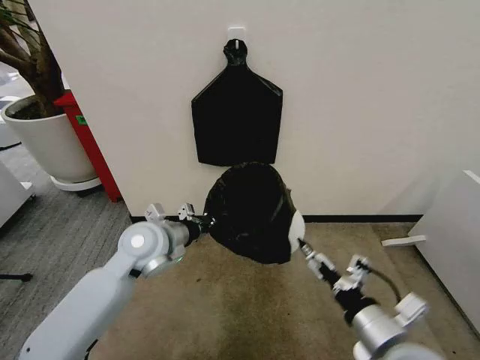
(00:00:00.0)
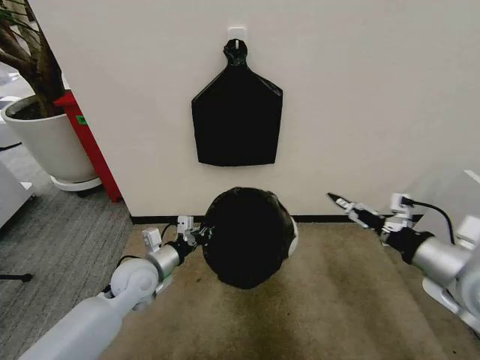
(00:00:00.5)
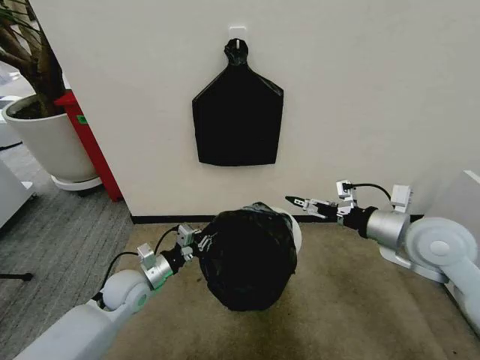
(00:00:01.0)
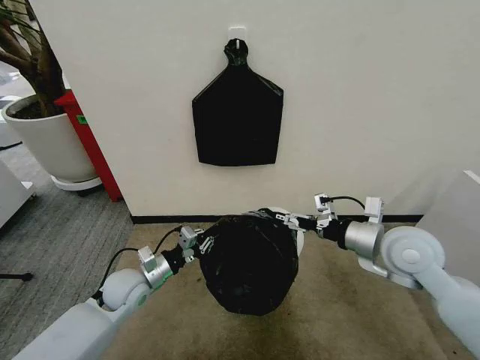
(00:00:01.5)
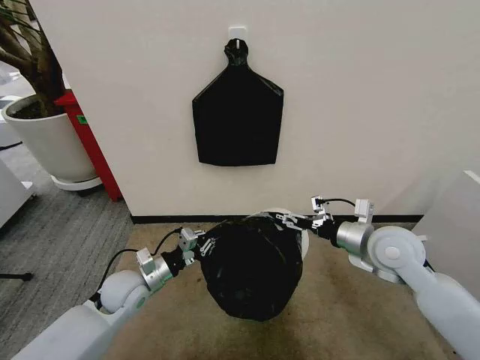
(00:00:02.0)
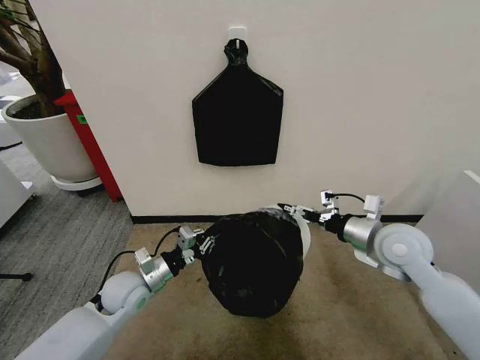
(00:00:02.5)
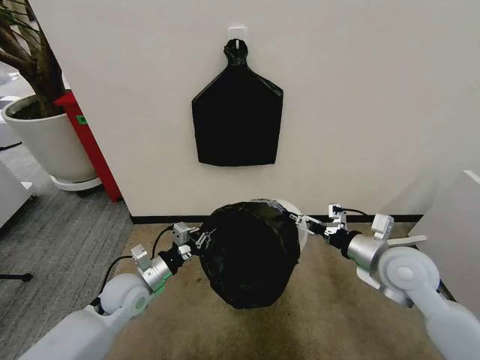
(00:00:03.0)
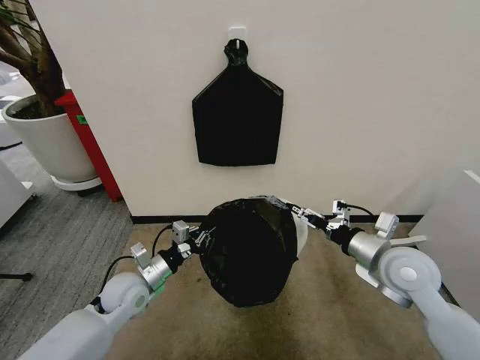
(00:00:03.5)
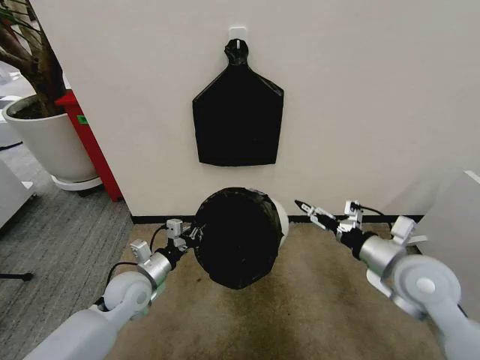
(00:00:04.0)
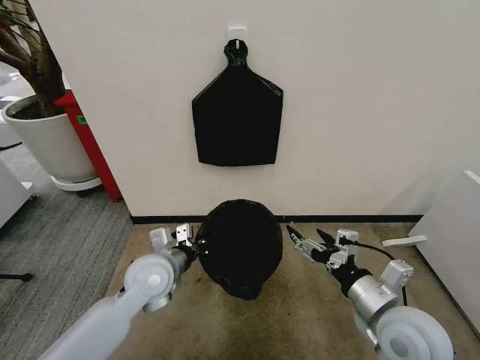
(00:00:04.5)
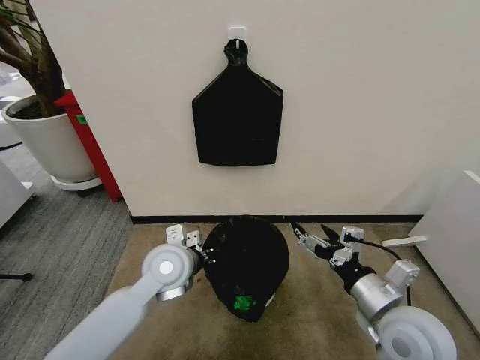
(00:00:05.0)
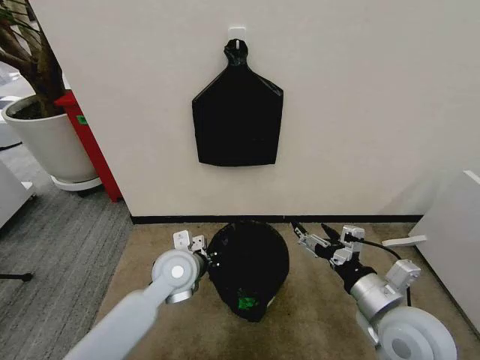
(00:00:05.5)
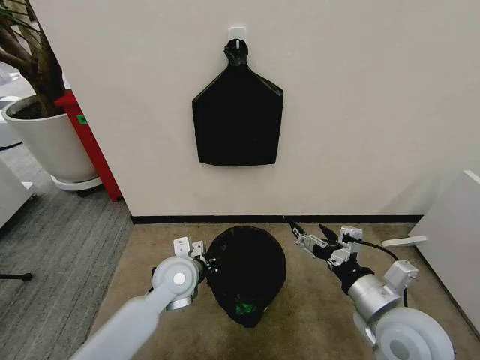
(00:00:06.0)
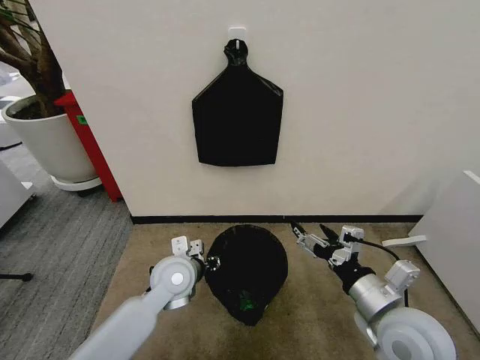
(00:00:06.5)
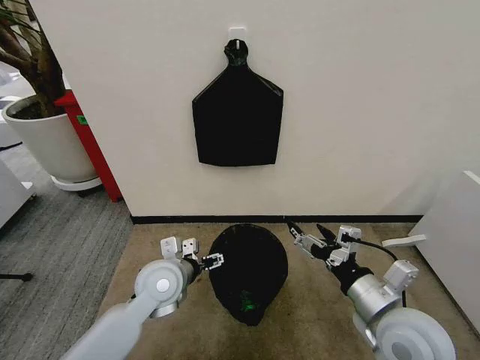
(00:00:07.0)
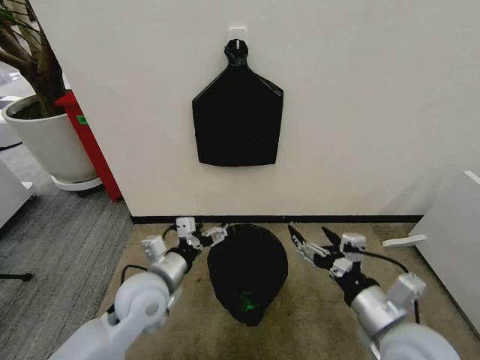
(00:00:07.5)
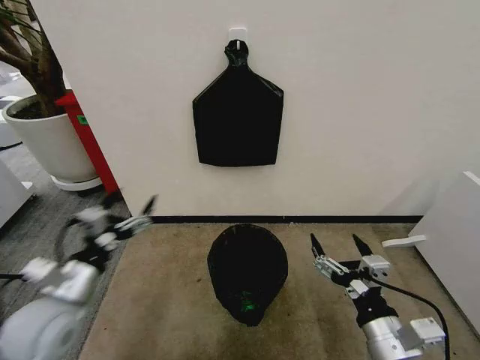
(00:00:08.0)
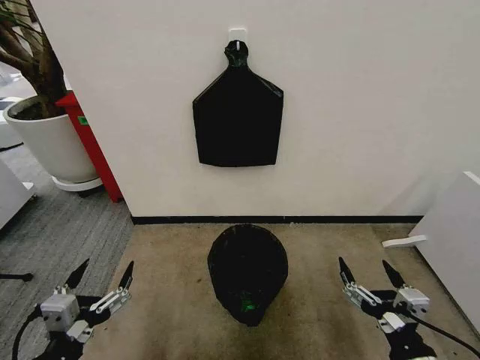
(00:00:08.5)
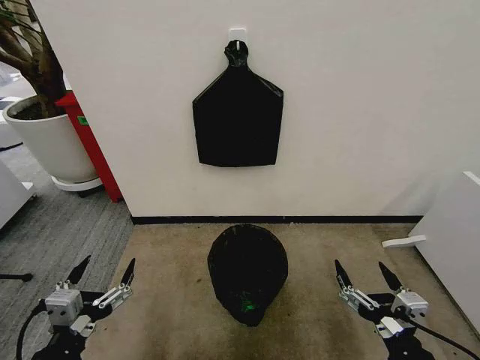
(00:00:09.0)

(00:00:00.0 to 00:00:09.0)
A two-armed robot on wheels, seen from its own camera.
Task of the whole recording: Place the garbage bag over the trash bin.
00:00:00.0 - 00:00:02.0: The left gripper shifts some 15 cm downward and to the left; the right gripper is displaced forward by approximately 20 cm.
00:00:02.0 - 00:00:04.5: The right gripper shifts approximately 15 cm backward, while the left gripper travels to the right and upward by about 10 cm.
00:00:04.5 - 00:00:07.0: The left gripper opens.
00:00:07.0 - 00:00:09.0: The right gripper shifts some 10 cm backward. The left gripper shifts approximately 25 cm backward and to the left.
